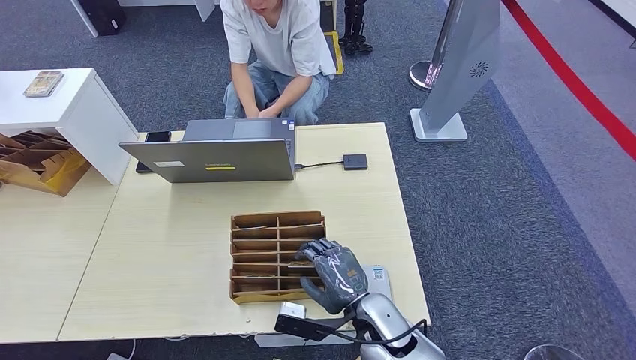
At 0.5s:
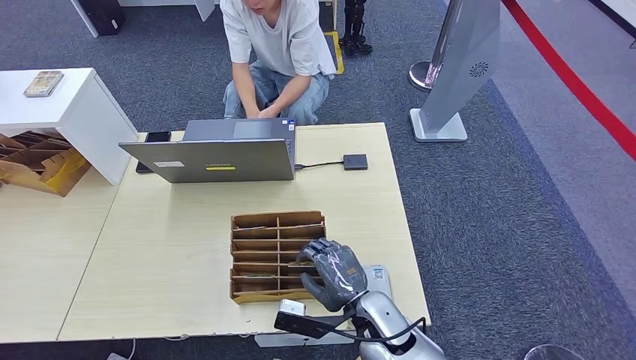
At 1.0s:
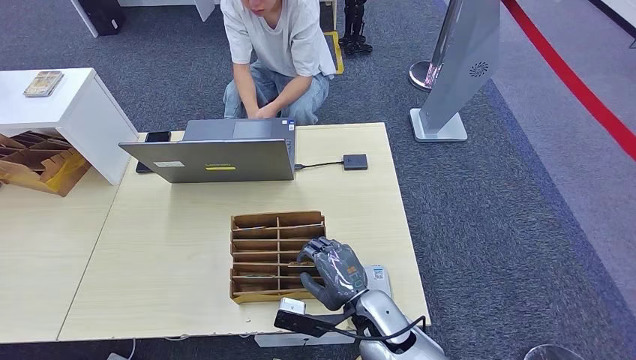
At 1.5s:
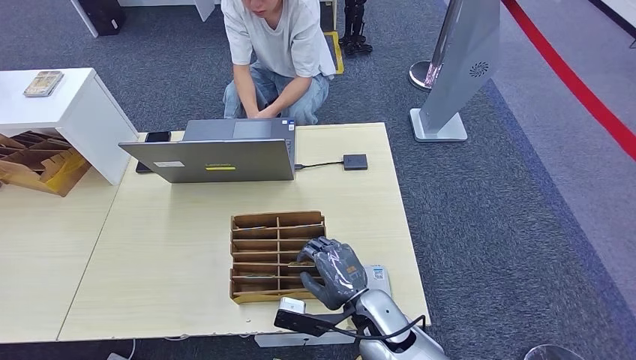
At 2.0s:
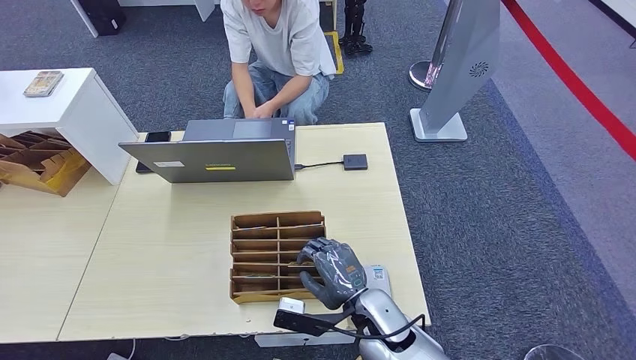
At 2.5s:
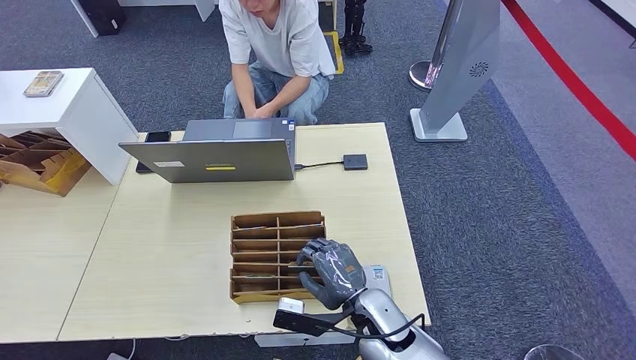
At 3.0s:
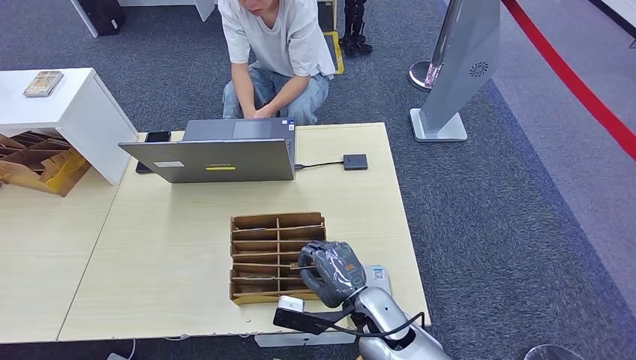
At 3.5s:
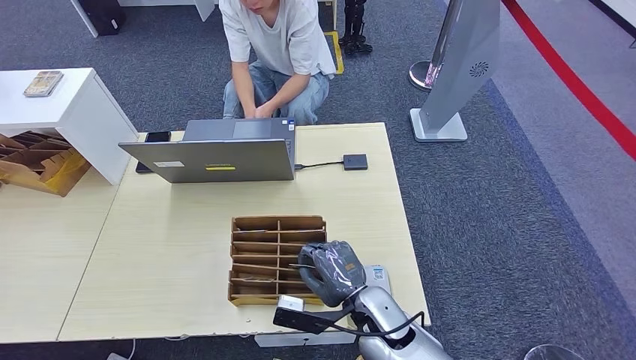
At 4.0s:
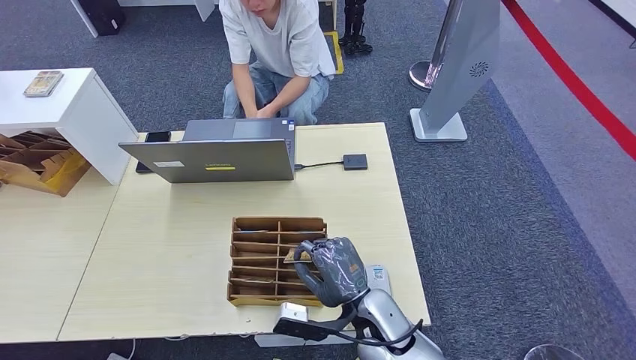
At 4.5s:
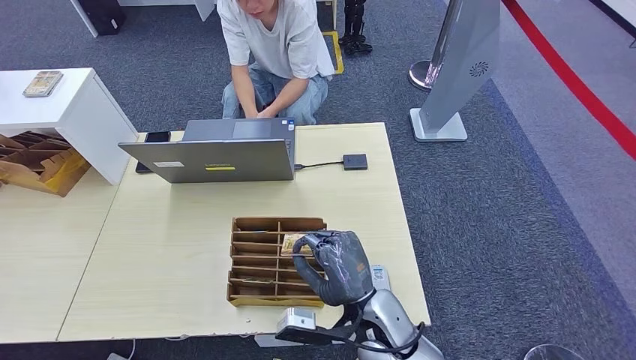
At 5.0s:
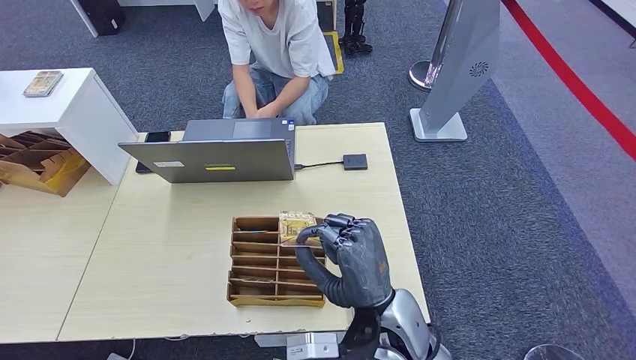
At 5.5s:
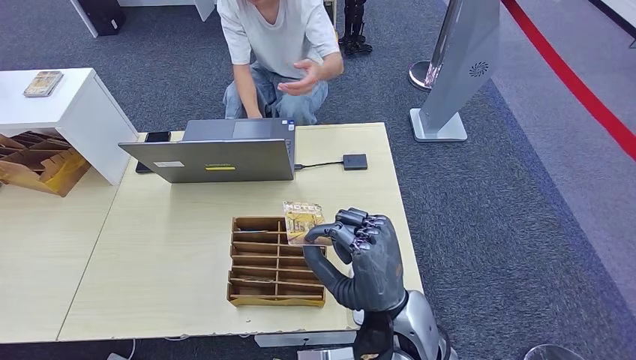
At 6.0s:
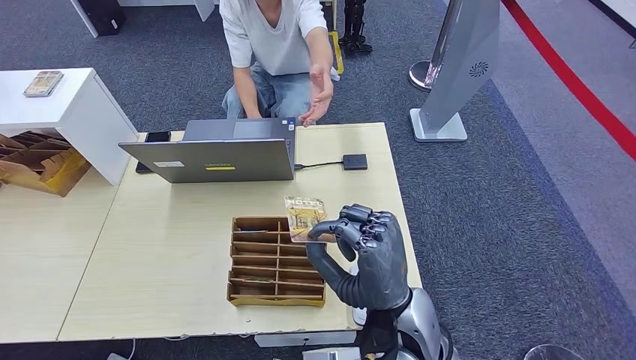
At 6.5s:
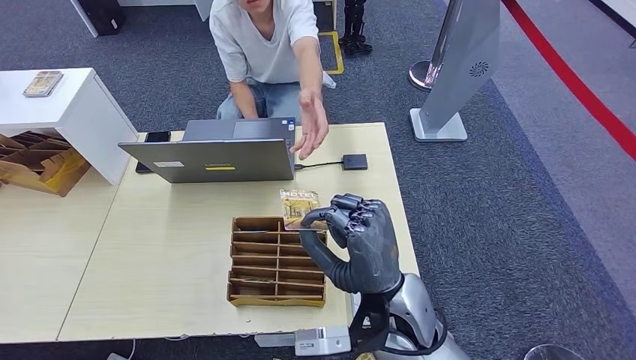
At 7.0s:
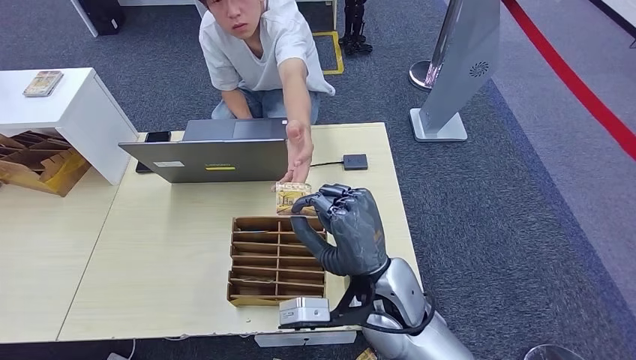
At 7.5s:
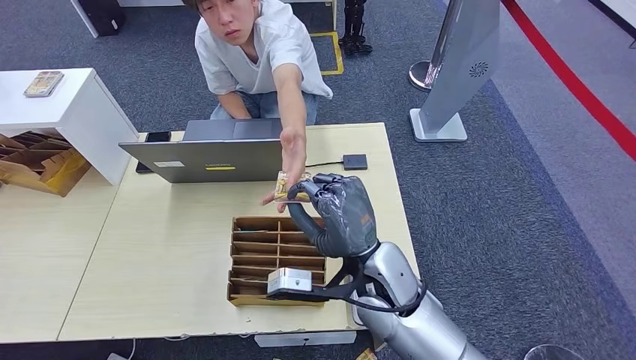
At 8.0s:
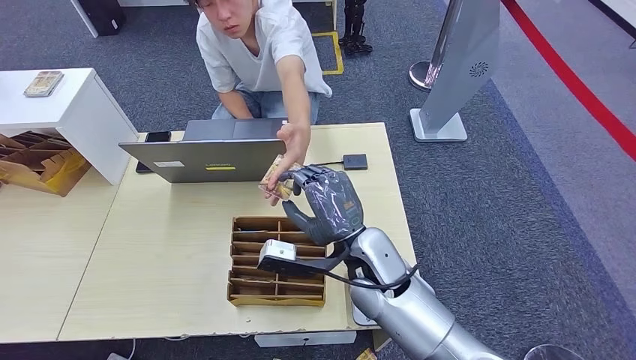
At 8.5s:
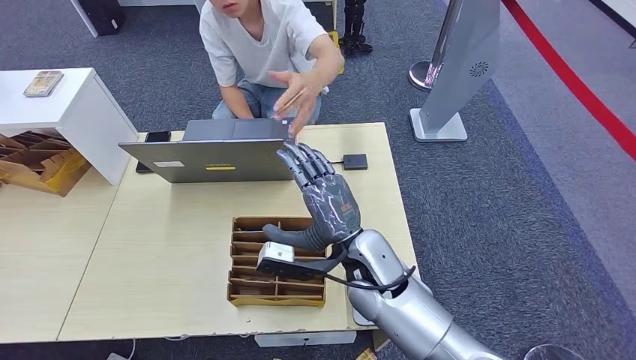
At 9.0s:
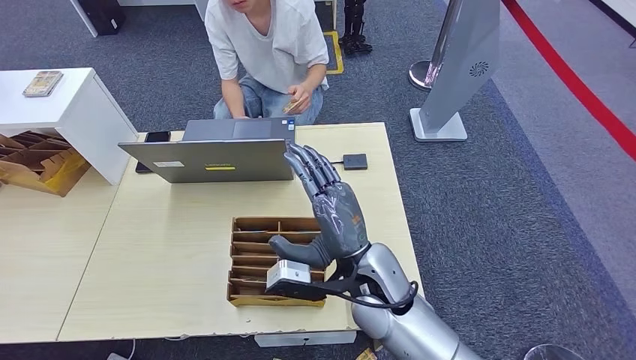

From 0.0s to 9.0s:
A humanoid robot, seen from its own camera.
Step, from 0.0s to 4.0s: Pick up the room key from the key card box.
Step, from 5.0s to 9.0s: Hand the room key to the person.
From 0.0s to 2.0s: Both hands stay about where they are.
From 4.5s to 7.0s: The right hand is displaced upward by some 10 cm.
